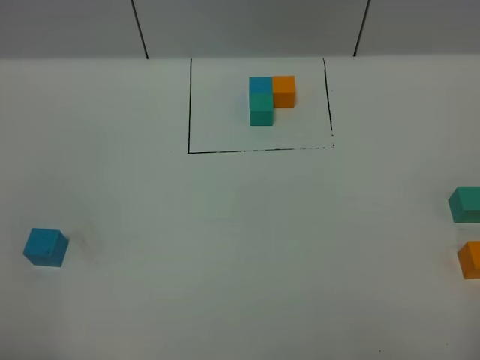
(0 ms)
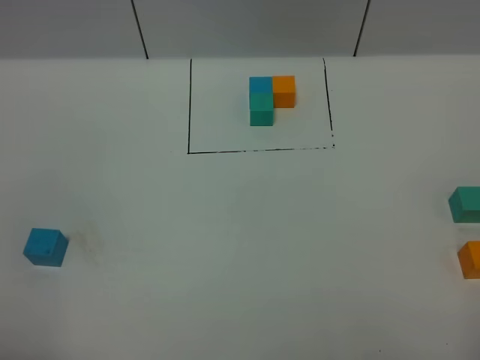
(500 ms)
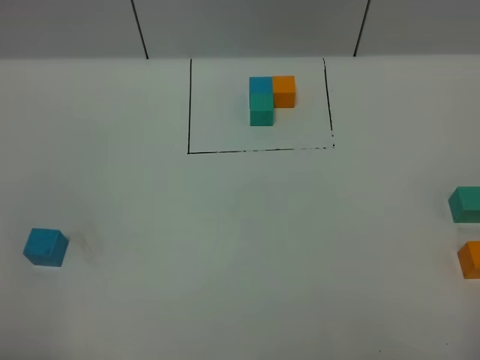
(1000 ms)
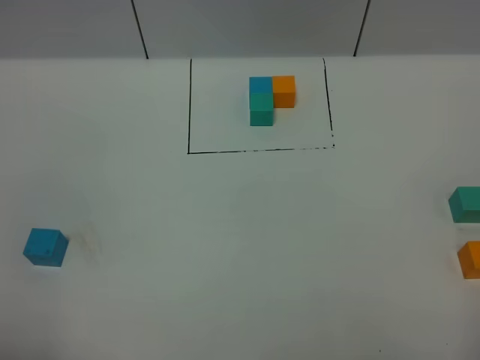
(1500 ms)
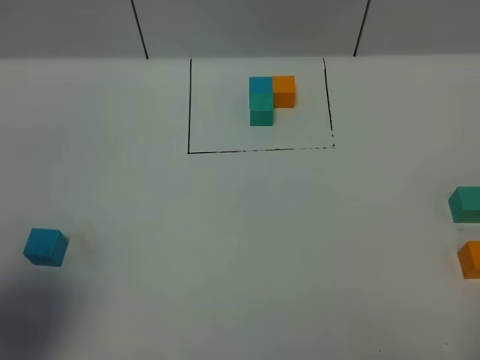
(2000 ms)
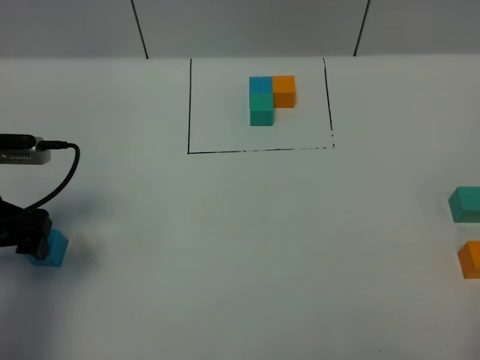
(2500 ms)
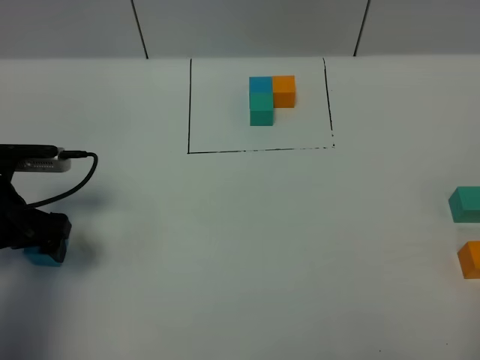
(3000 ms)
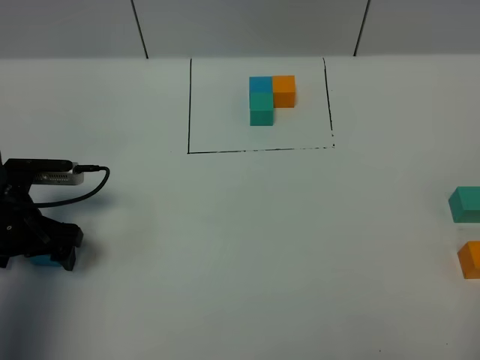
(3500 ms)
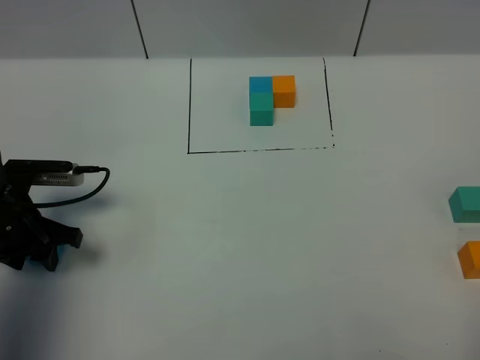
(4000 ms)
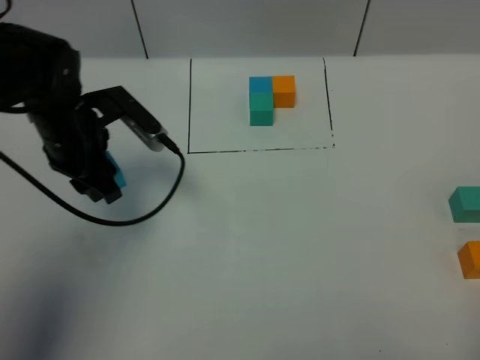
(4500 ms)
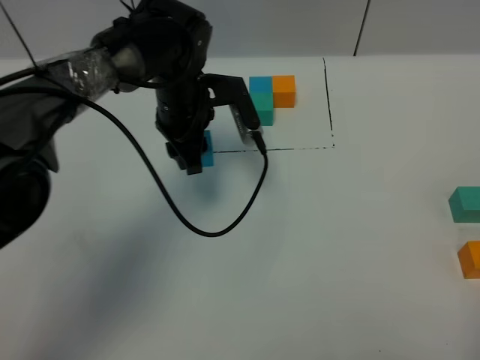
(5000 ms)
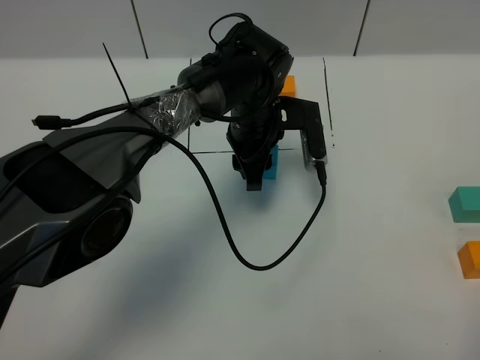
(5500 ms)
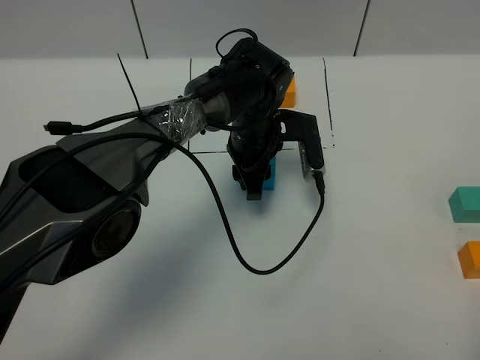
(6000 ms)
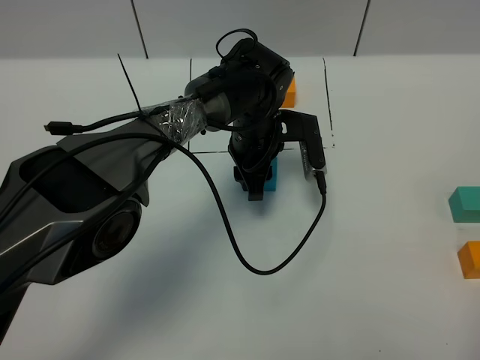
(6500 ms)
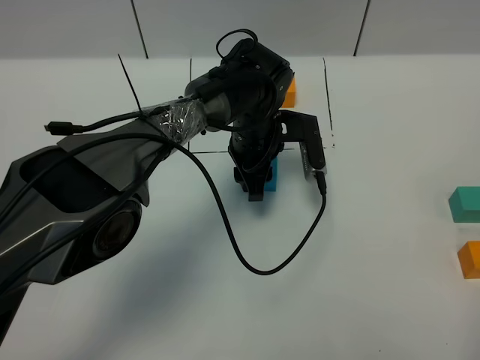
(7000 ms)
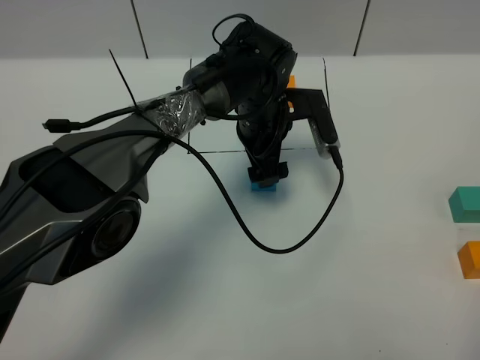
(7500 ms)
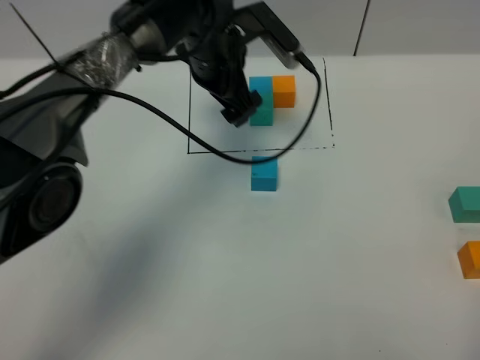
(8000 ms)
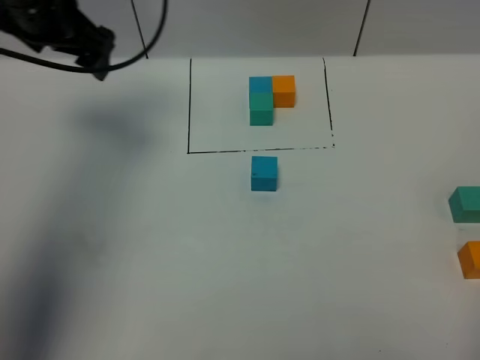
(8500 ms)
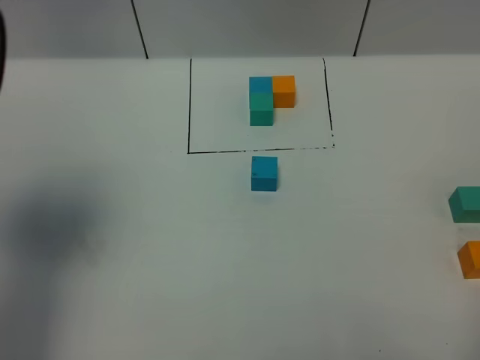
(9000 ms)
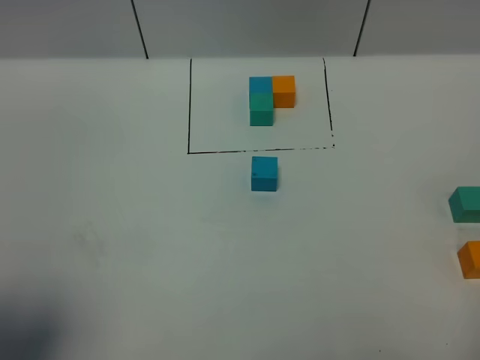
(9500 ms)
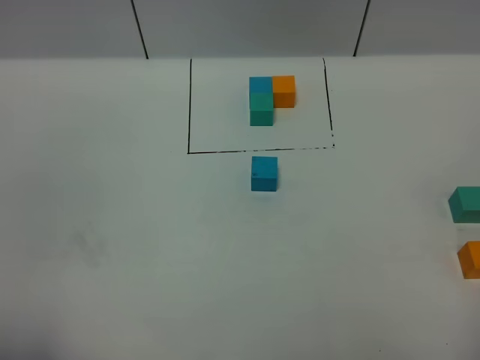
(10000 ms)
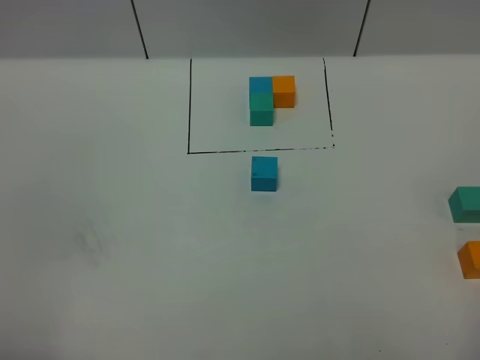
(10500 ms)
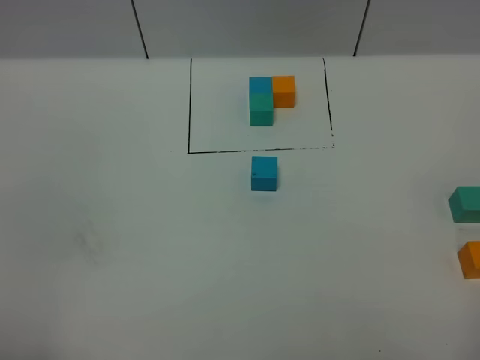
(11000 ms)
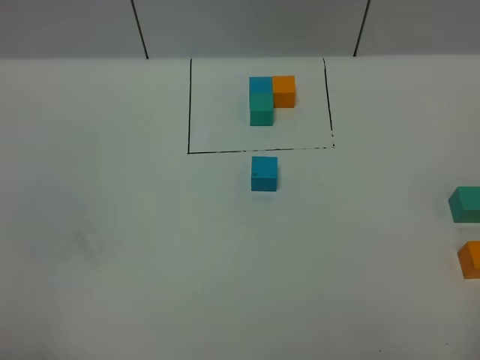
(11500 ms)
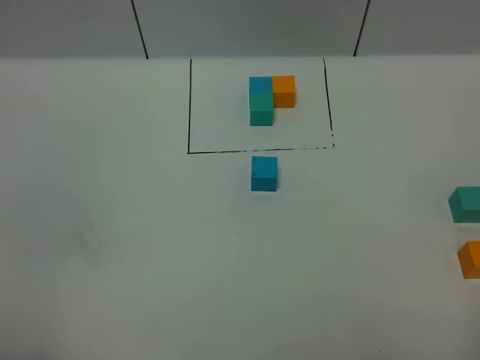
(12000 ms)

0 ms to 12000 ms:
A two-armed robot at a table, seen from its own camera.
Task of the whole recording: According to the building block template in front, assemble the scattered blocks together.
Step, 0 ms to 7000 ms: Put the blue build block in the center of the table.
0 ms to 2000 ms: The left gripper goes some 15 cm forward.
2000 ms to 4000 ms: The left gripper heads downward and forward, covering about 25 cm, and closes up.
4000 ms to 6000 ms: The left gripper shifts roughly 35 cm to the right and forward.
6000 ms to 8000 ms: The left gripper shifts approximately 15 cm upward and to the left, and opens.
8000 ms to 10000 ms: The left gripper shifts some 50 cm backward and to the left.

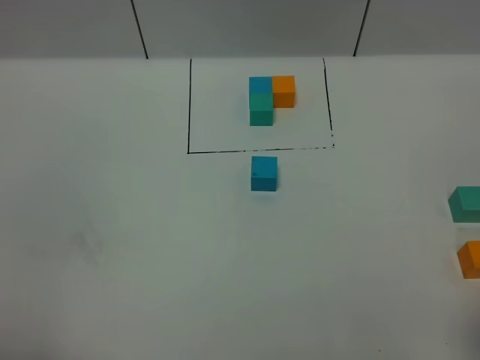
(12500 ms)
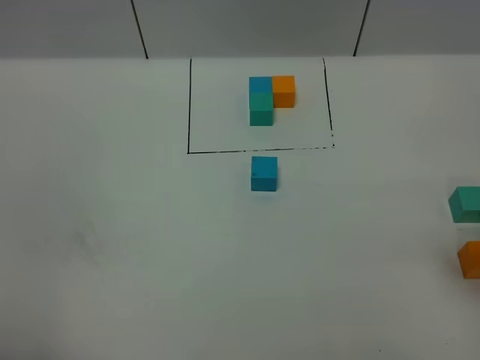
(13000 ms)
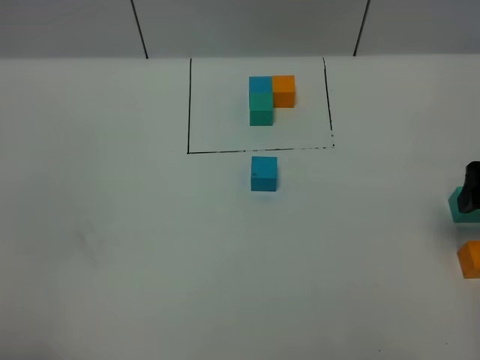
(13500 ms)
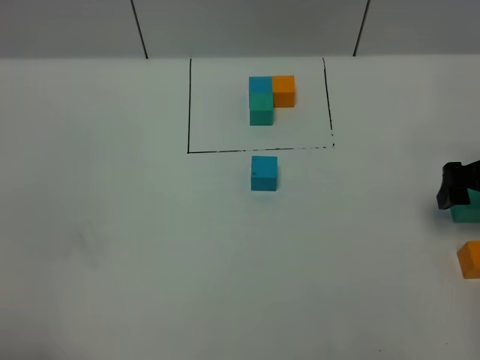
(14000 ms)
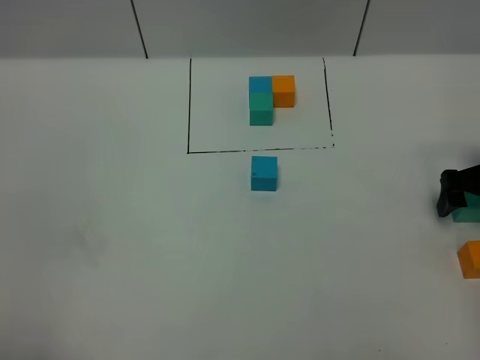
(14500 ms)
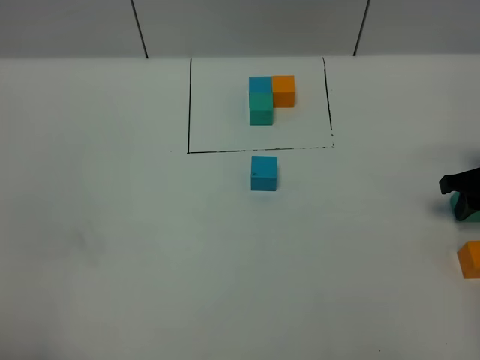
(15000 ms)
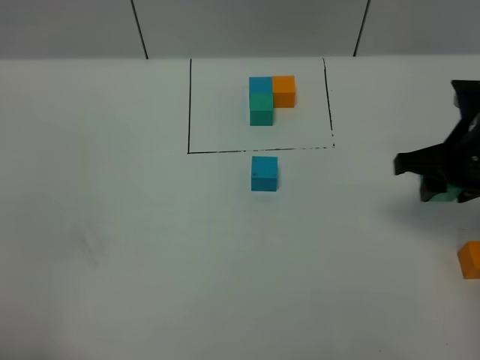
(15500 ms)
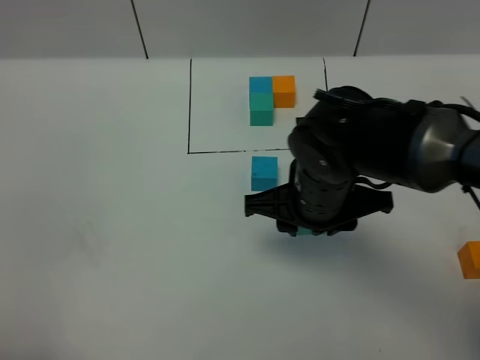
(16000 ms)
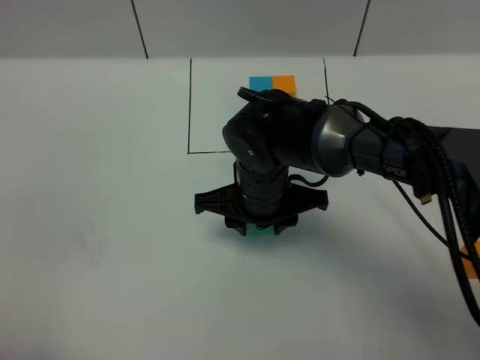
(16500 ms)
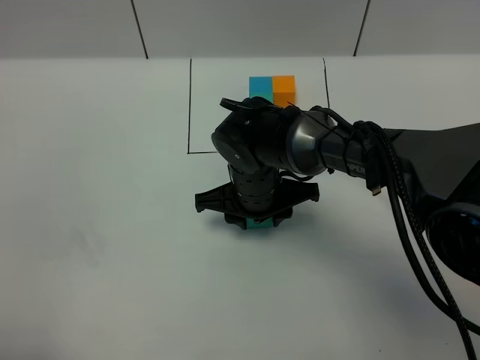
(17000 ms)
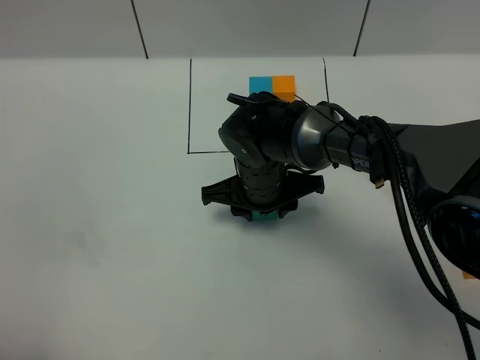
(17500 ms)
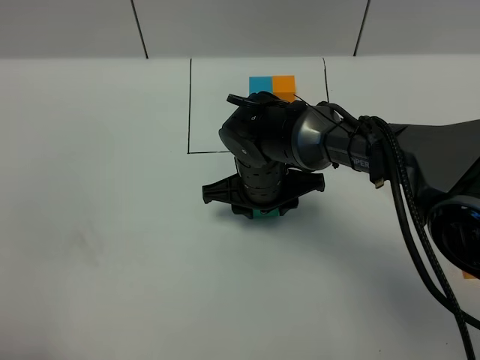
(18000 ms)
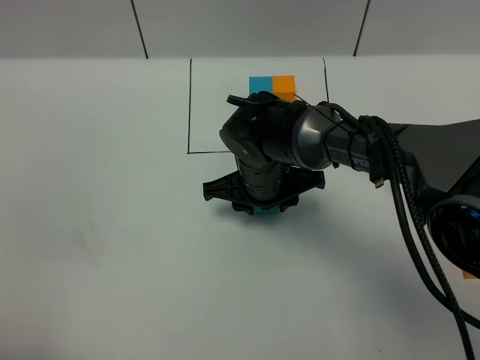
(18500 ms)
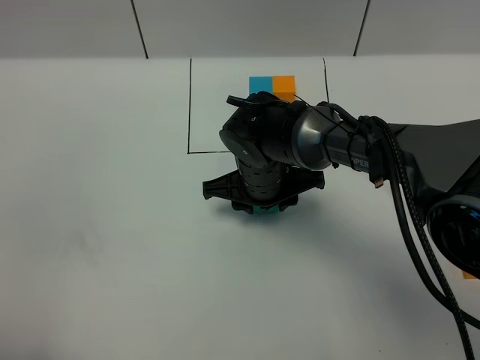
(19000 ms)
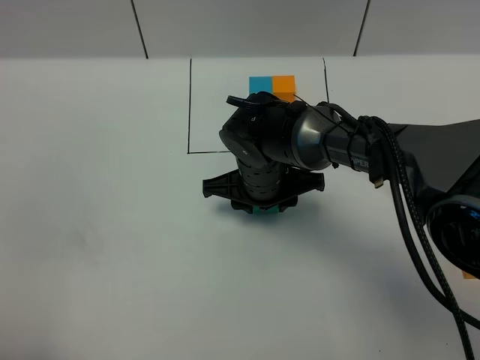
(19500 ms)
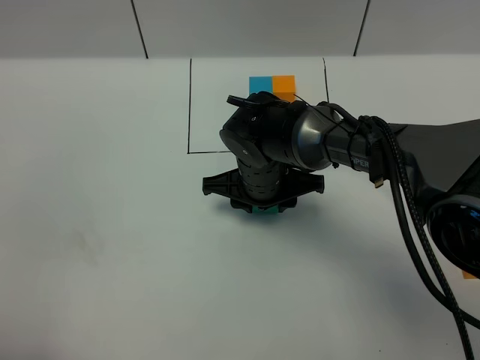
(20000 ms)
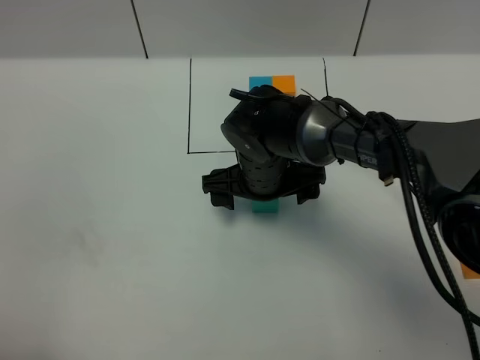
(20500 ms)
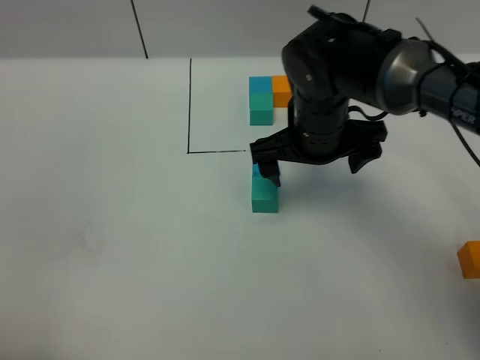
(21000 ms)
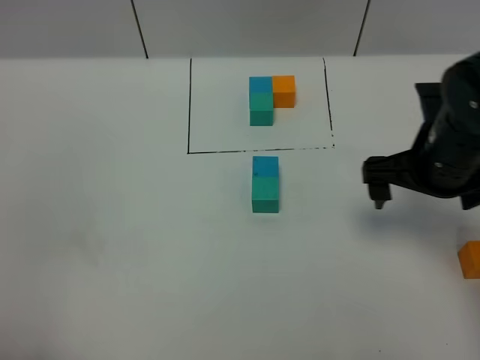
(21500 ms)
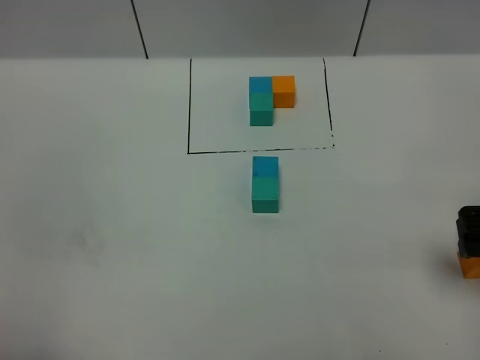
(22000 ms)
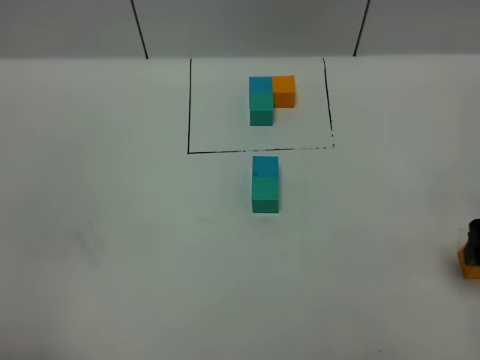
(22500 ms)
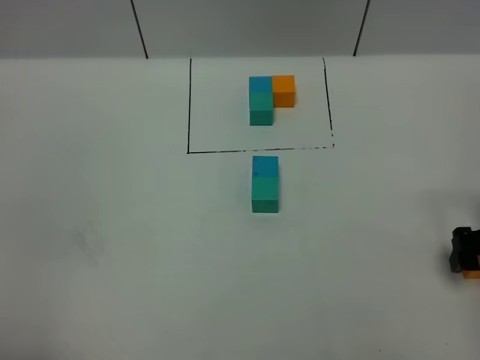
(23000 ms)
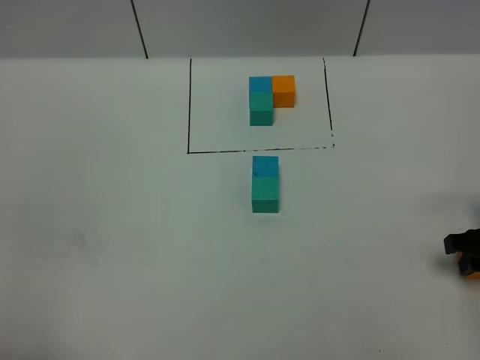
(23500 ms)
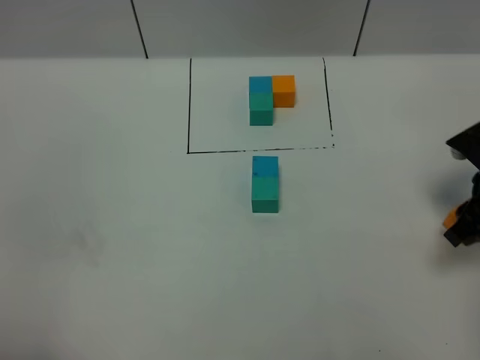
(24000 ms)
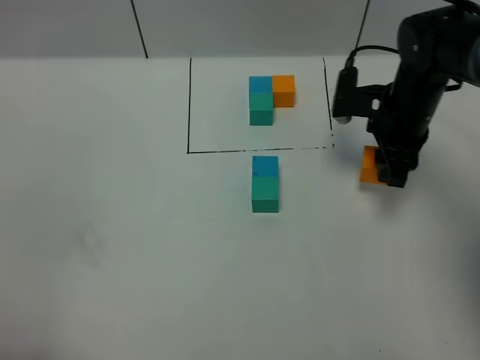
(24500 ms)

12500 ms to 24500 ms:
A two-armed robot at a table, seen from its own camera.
Task of the whole recording: According to the building block template in front, assemble the scattered blocks together.
Step, 12500 ms to 20000 ms: Put the green build block on the behind of the blue build block.
12500 ms to 14500 ms: The right gripper goes some 30 cm forward and downward.
14500 ms to 16500 ms: The right gripper shifts roughly 35 cm to the left, and closes its fingers.
16500 ms to 18500 ms: The grippers make only small movements.
18500 ms to 20500 ms: The right gripper opens.
20500 ms to 22500 ms: The right gripper moves to the right and backward, about 35 cm.
22500 ms to 24500 ms: The right gripper moves forward and to the left, some 20 cm, and closes up.

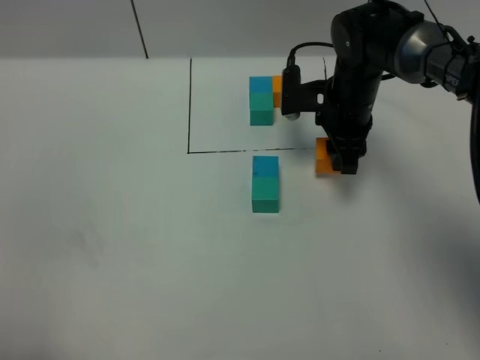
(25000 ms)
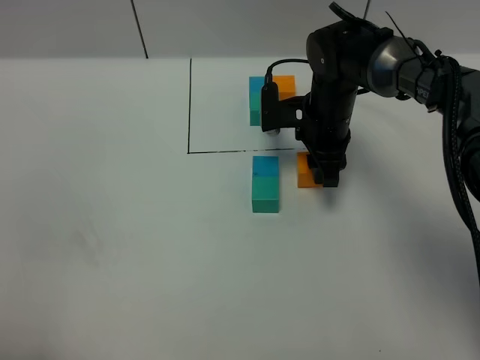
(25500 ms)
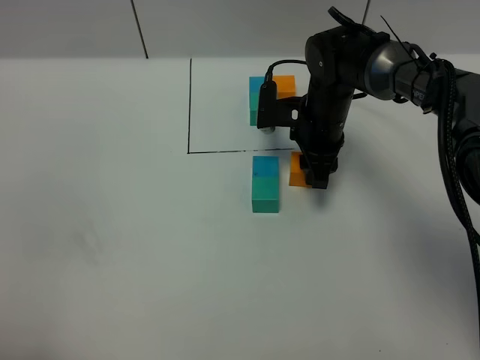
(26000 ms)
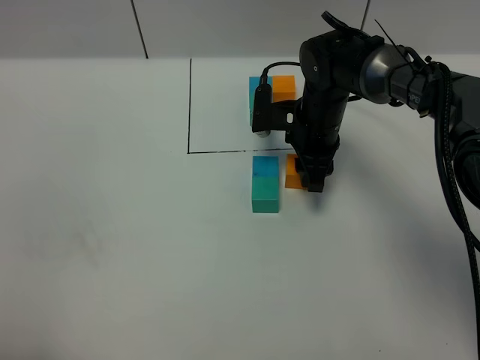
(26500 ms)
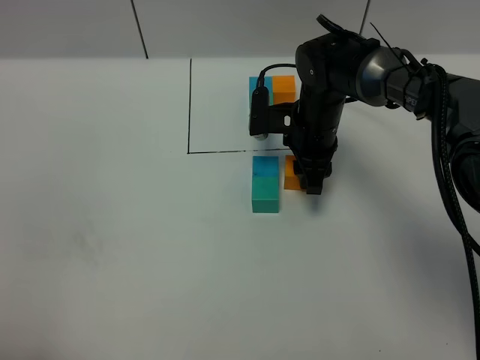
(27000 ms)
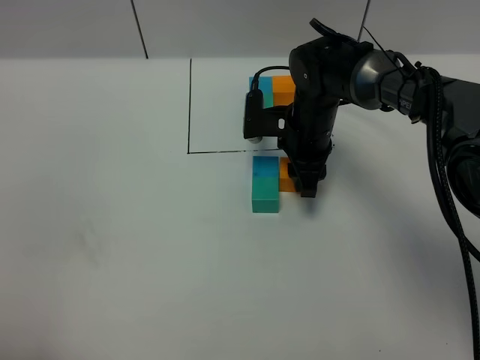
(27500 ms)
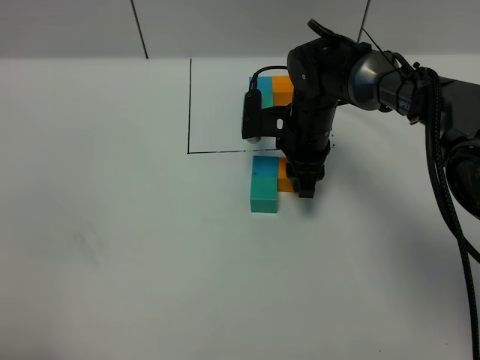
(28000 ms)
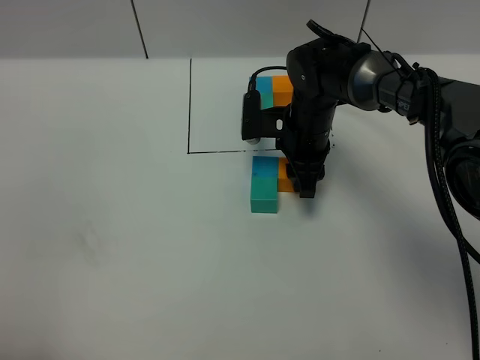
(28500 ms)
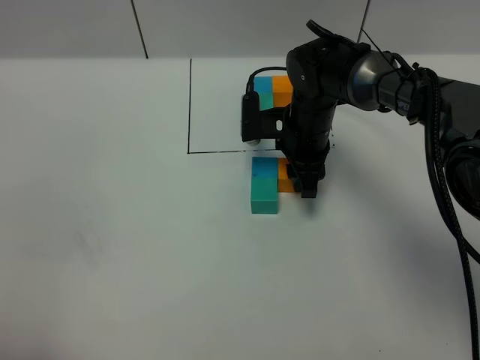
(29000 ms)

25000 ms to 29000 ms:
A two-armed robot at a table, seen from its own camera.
Task of the whole recording: According to the building block template in front, assemble the scattered blocks together.
25000 ms to 27000 ms: The right gripper moves some 5 cm.
27000 ms to 29000 ms: Both grippers stay put.
